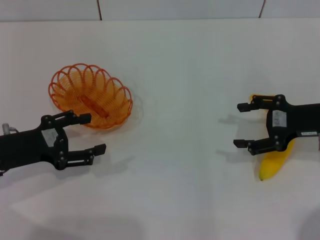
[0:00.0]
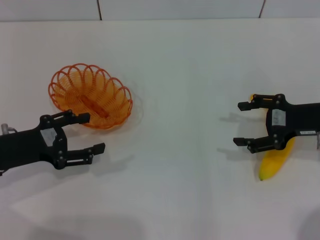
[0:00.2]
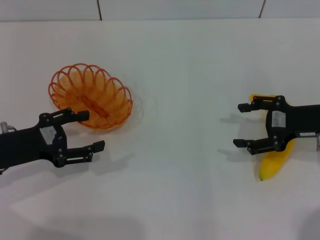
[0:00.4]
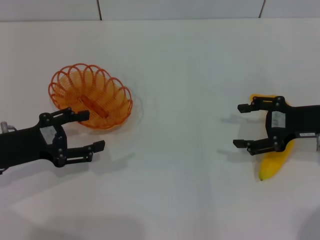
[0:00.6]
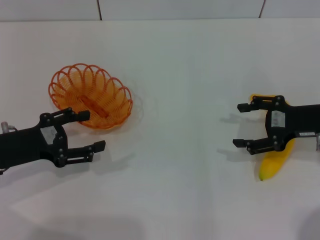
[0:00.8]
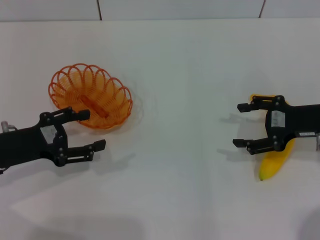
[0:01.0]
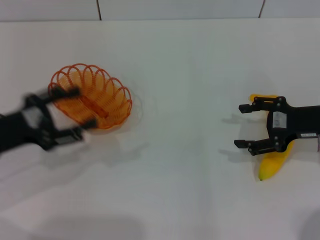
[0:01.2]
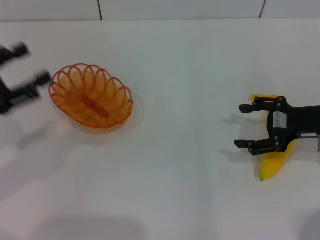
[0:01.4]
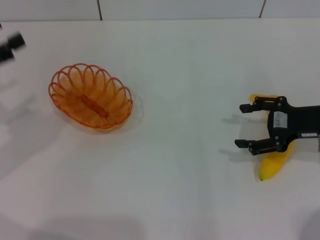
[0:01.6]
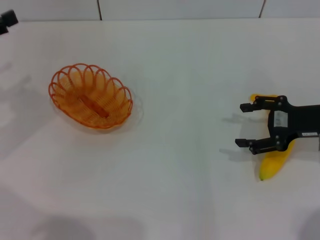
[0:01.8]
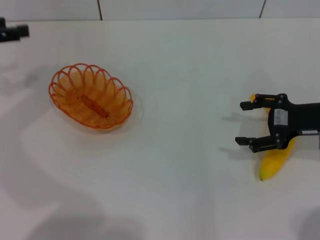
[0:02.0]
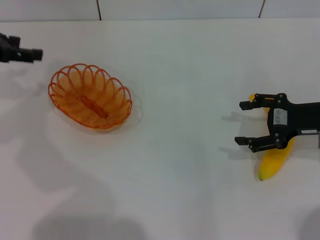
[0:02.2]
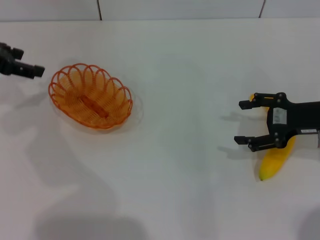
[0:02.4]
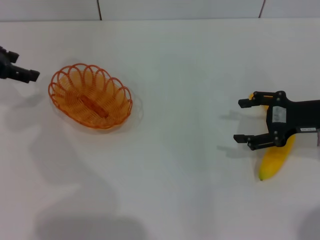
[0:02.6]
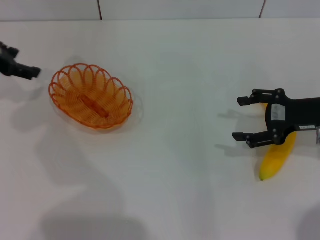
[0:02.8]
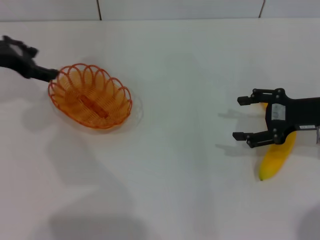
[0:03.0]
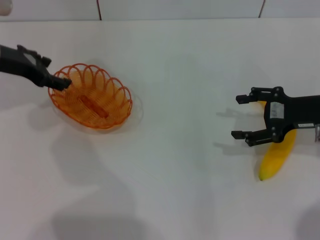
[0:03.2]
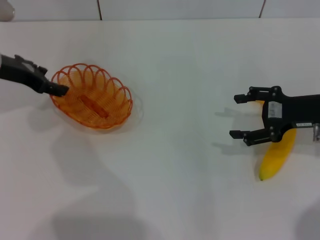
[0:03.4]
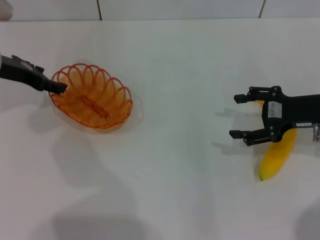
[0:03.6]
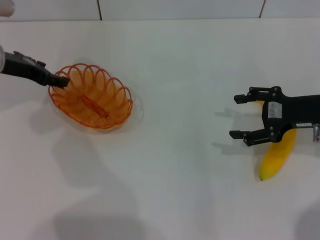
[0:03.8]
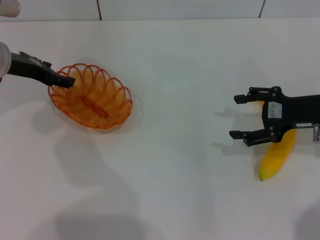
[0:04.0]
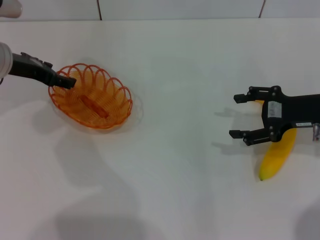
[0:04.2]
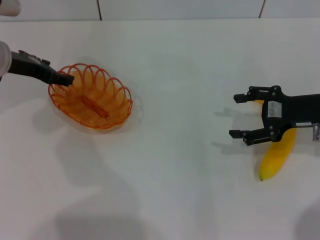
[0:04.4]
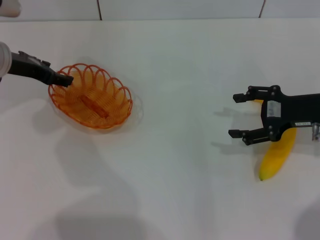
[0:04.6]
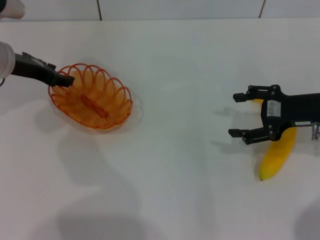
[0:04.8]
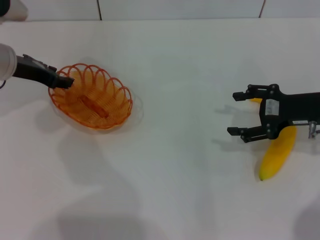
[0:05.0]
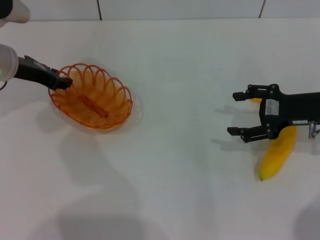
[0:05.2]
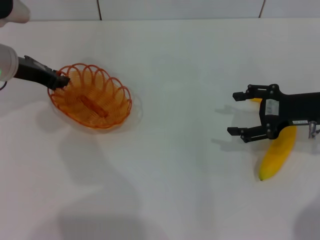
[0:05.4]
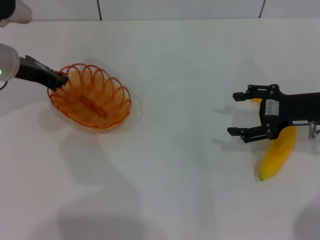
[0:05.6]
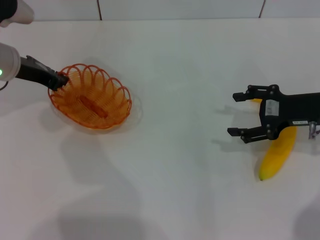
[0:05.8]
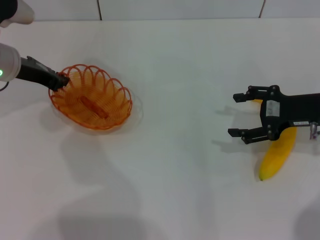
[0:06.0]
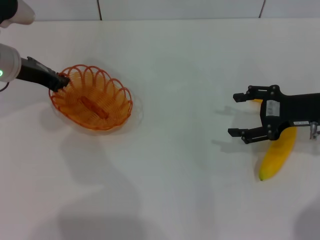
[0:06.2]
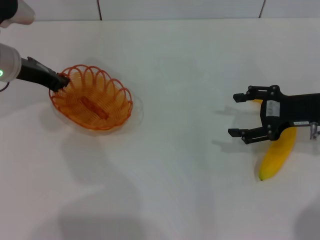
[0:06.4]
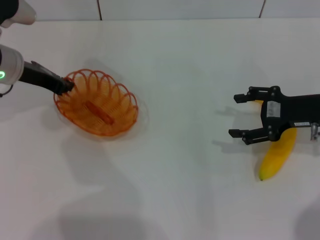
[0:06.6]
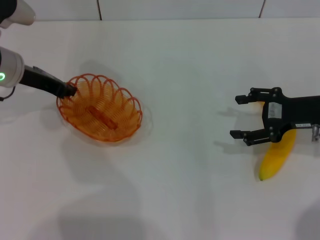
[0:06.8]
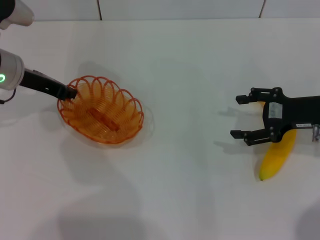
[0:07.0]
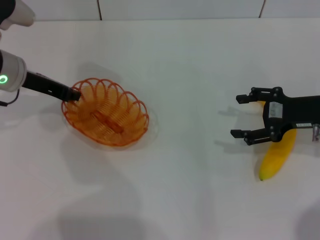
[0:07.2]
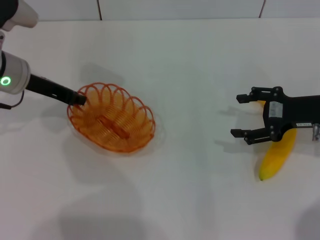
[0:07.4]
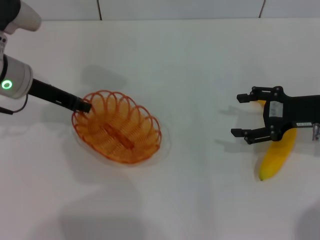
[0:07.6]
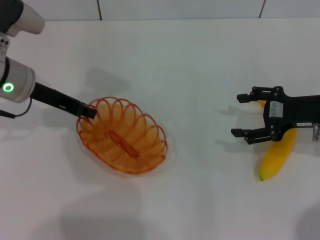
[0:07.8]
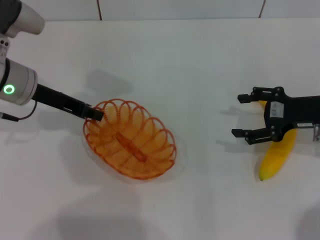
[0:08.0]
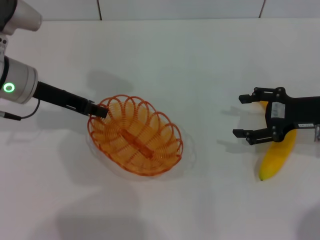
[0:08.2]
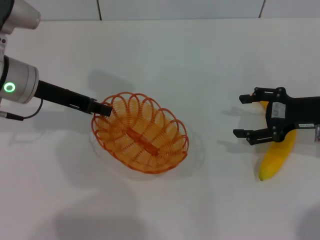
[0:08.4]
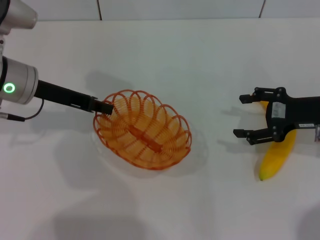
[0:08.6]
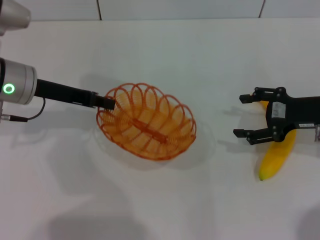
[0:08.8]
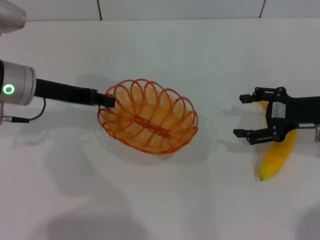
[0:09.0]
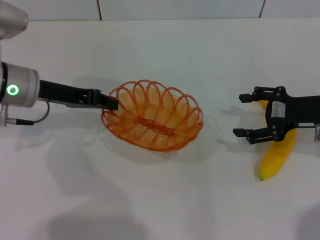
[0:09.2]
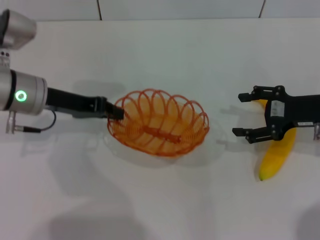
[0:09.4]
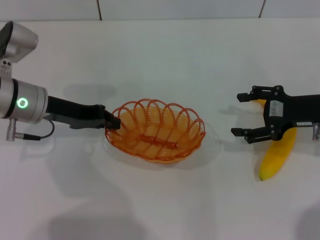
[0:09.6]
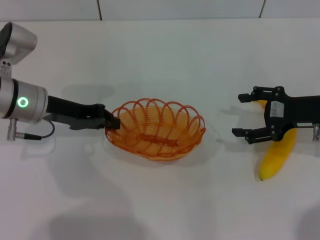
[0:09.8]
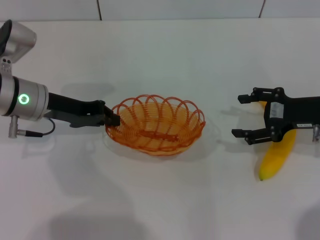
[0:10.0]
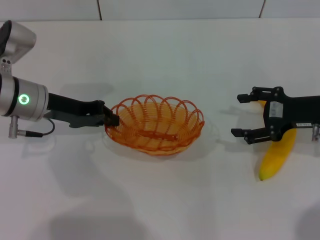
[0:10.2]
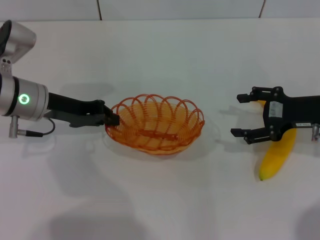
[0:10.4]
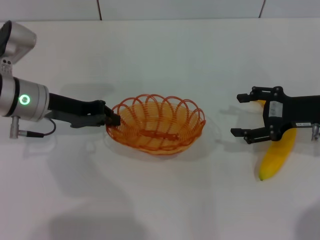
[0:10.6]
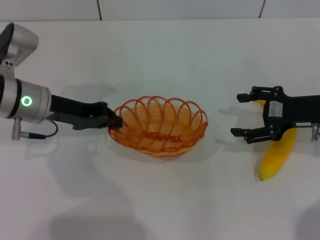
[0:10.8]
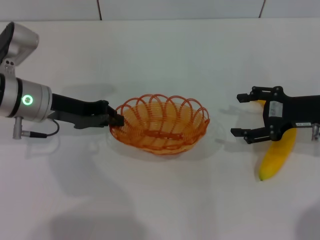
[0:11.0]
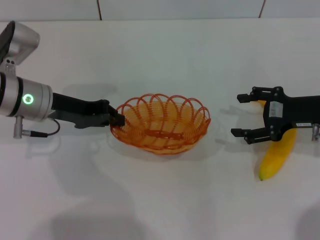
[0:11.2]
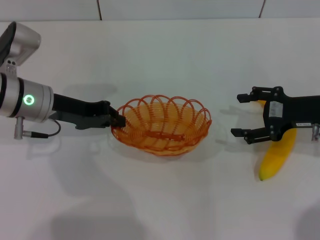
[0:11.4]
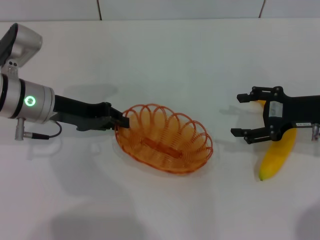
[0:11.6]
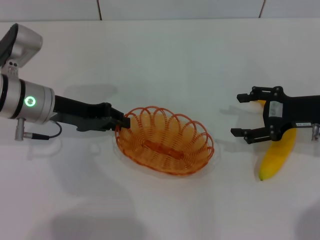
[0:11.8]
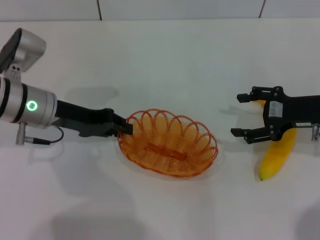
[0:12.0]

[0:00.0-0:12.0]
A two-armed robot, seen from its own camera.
Step, 0:00.0 to 0:08.2: Pick up the basket with the left gripper.
0:00.0 to 0:01.6: The left gripper shifts some 10 cm upward and to the left.
0:01.6 to 0:03.0: The left gripper is displaced forward and to the right by roughly 15 cm.
0:03.0 to 0:04.4: The grippers make only small movements.
0:04.4 to 0:06.0: The left gripper closes.
0:06.0 to 0:07.6: The grippers stay close to where they were, moving slightly.
0:09.0 to 0:10.4: The grippers make only small movements.
0:10.4 to 0:12.0: Both grippers stay put.

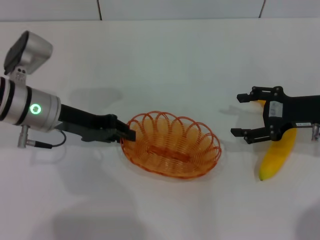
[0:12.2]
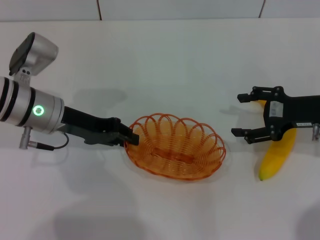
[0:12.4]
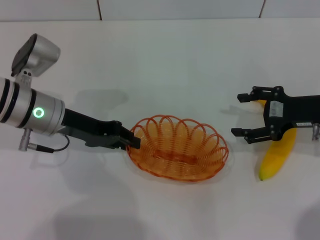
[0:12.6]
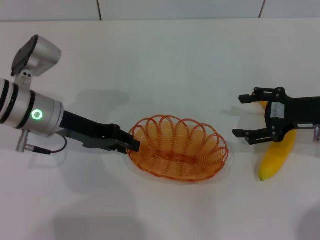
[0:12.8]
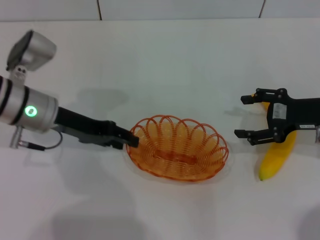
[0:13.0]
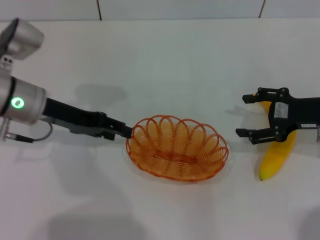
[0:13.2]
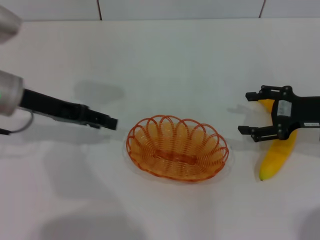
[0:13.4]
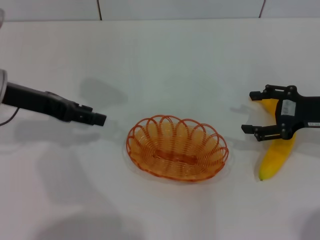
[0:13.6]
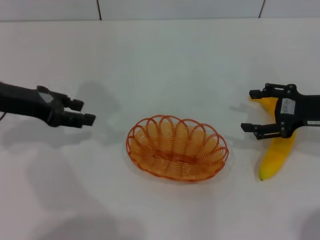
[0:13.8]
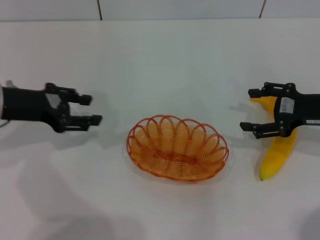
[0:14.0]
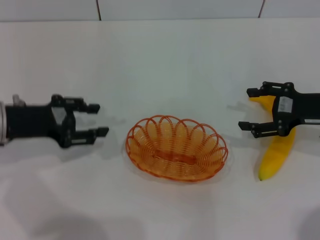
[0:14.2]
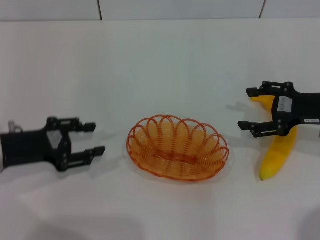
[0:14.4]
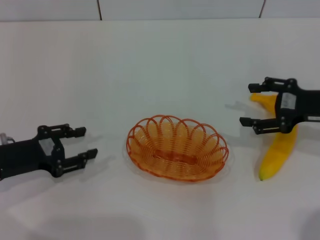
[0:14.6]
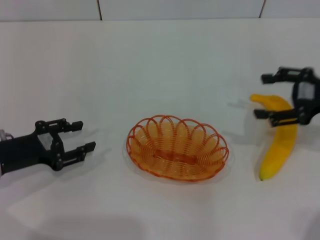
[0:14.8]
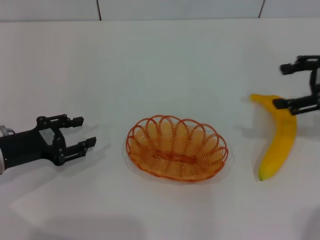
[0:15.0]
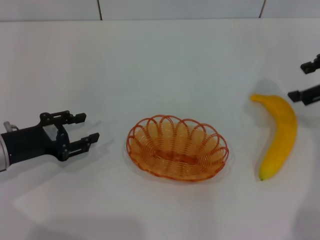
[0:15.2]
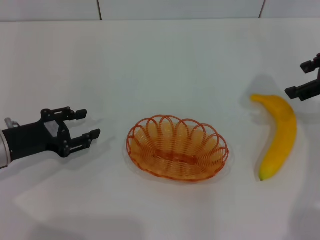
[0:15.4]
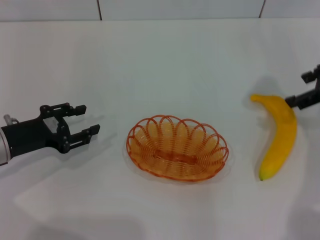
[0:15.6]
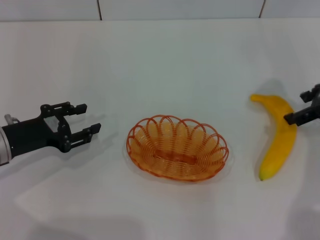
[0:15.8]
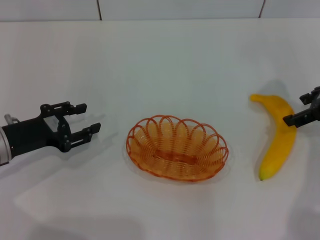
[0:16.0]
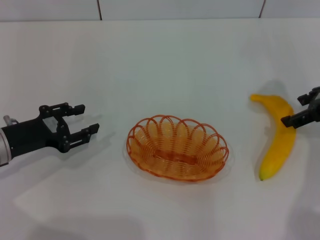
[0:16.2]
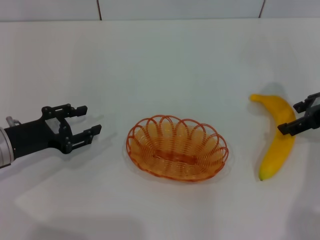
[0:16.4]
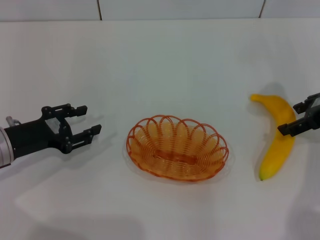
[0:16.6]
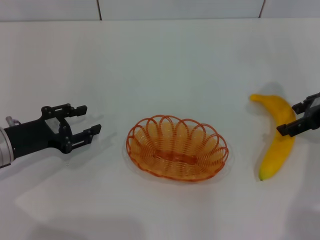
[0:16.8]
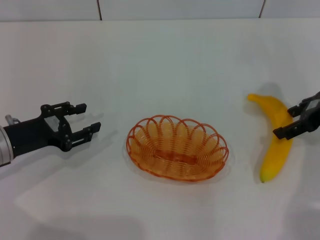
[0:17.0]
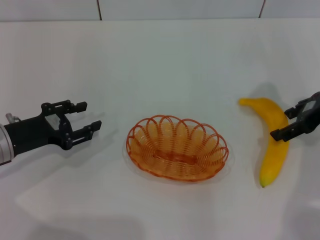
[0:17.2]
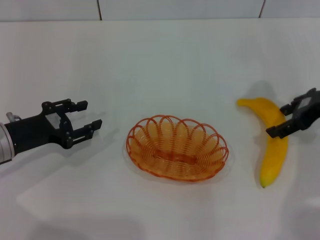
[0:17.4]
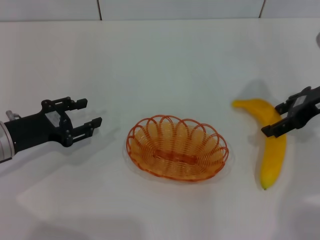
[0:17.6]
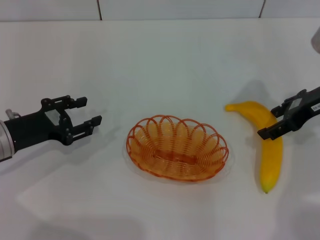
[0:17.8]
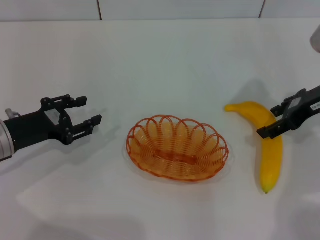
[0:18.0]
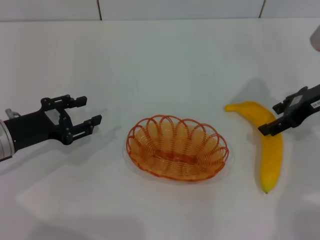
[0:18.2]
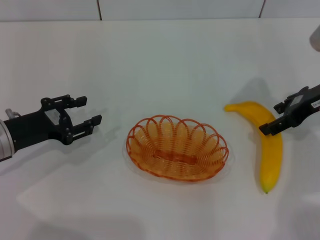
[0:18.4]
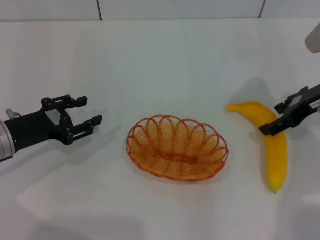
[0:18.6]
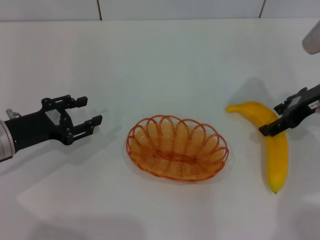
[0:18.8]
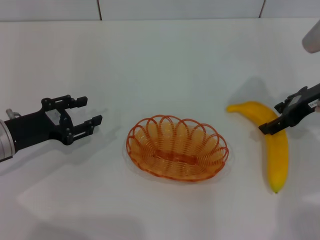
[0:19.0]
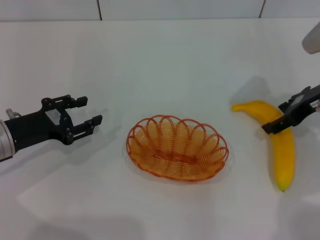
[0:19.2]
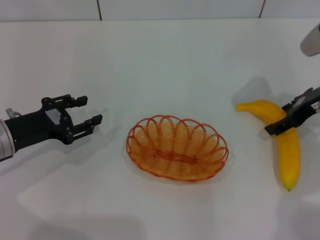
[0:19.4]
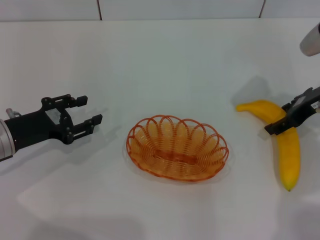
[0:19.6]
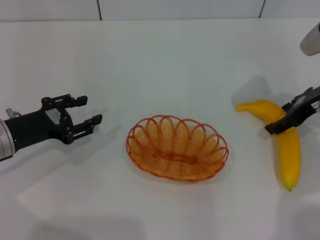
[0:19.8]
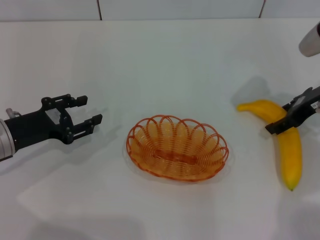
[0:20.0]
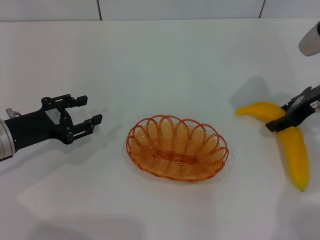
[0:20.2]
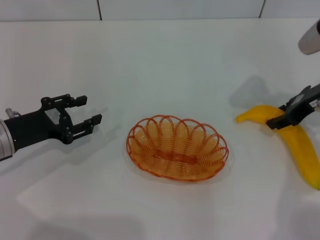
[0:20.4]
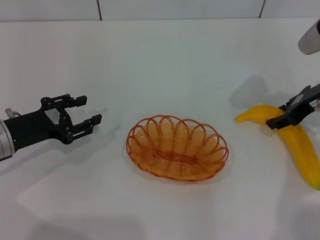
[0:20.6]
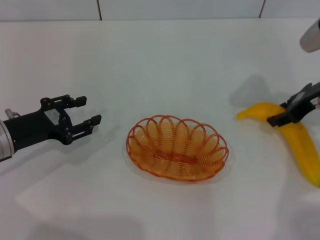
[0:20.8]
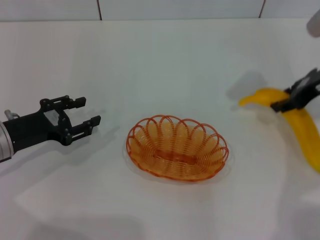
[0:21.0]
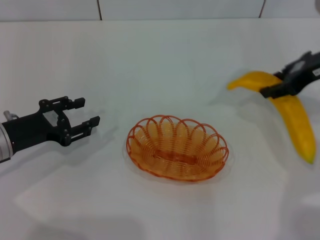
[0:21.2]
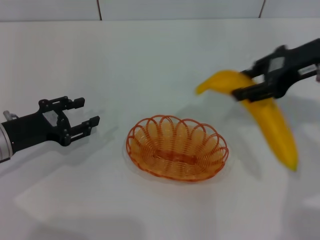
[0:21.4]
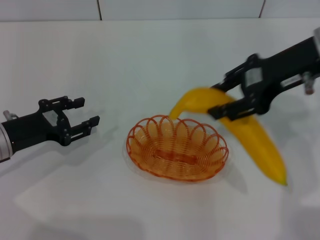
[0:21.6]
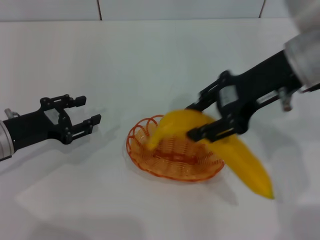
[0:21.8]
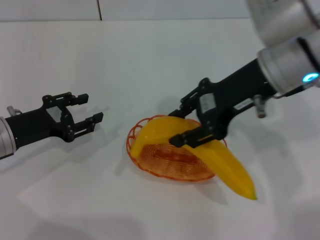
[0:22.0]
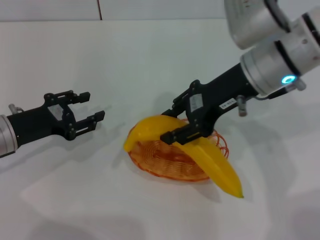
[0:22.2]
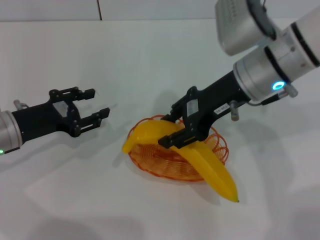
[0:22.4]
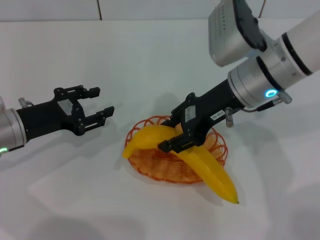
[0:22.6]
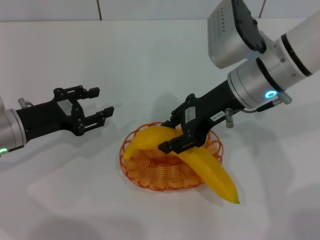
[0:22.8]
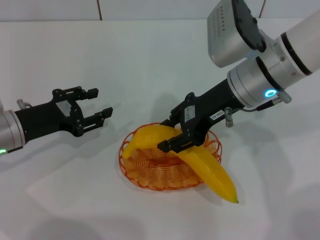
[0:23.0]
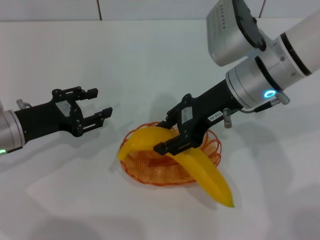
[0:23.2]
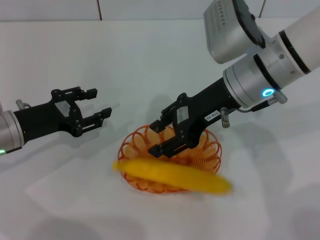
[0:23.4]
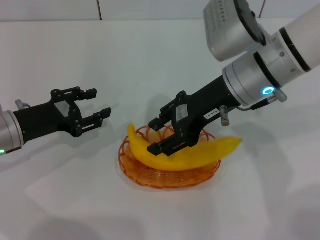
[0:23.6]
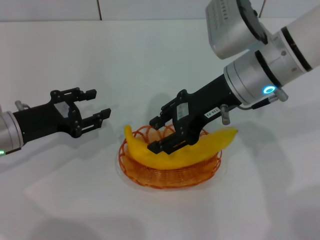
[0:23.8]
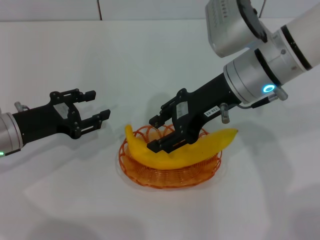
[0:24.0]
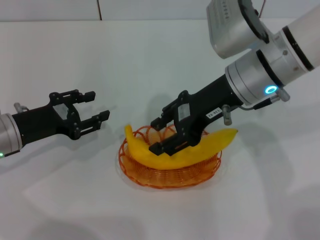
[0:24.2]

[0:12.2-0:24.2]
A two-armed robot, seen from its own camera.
Step, 0:13.6 to 0:21.0: Pick up the banana with the right gripper.
0:12.2 to 0:13.8: The left gripper moves to the left, roughly 5 cm, and opens.
0:13.8 to 0:15.2: The left gripper heads downward and backward, covering about 10 cm, while the right gripper shifts approximately 10 cm upward.
0:15.2 to 0:16.6: The right gripper travels downward by roughly 5 cm.
0:16.6 to 0:19.8: There are only small adjustments of the grippers.
0:19.8 to 0:21.2: The right gripper heads upward, covering approximately 5 cm, and closes up.
0:21.2 to 0:22.6: The right gripper heads to the left, covering roughly 15 cm.
0:22.6 to 0:24.2: There are only small adjustments of the grippers.
